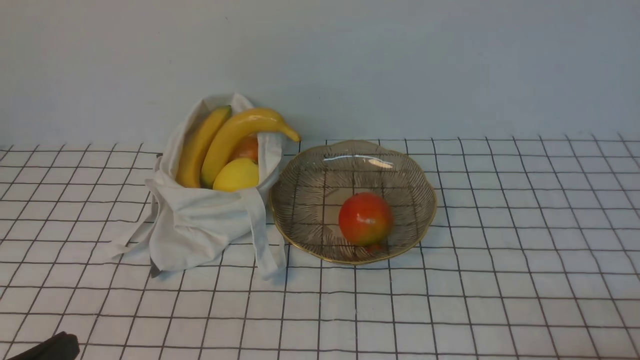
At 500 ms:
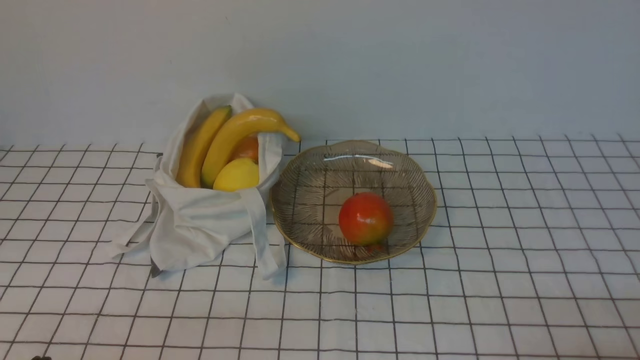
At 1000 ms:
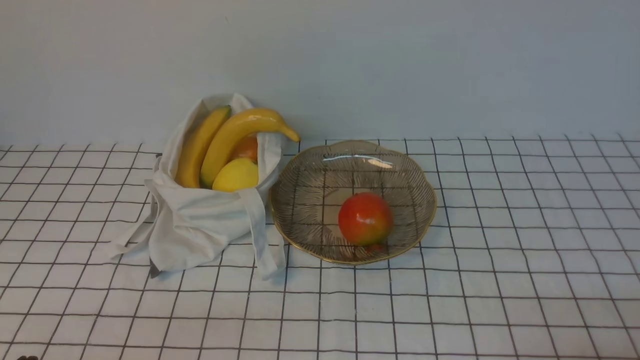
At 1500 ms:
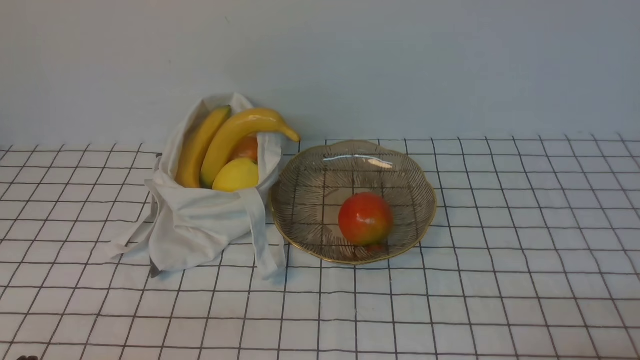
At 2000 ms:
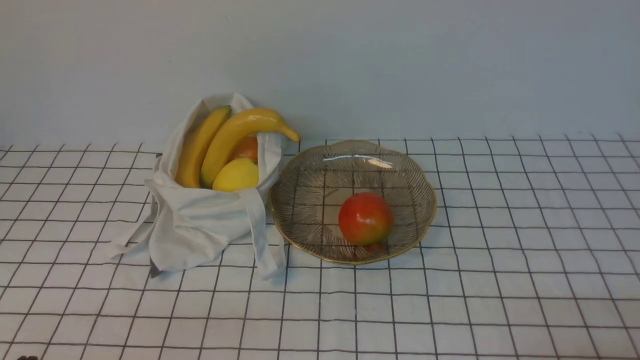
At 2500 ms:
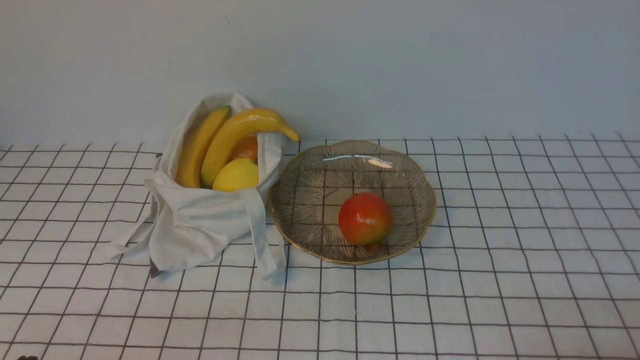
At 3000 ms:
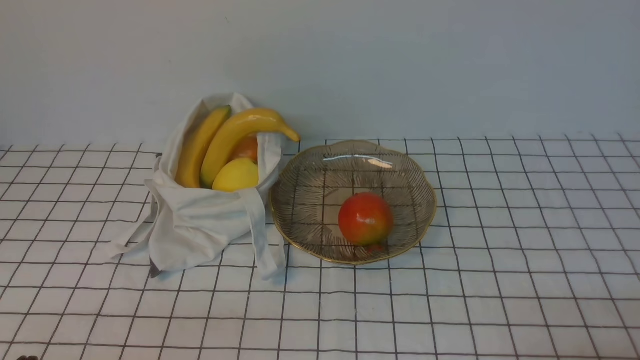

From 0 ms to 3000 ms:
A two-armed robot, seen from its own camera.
From 1500 ms to 3000 ms: Neither gripper changes place.
